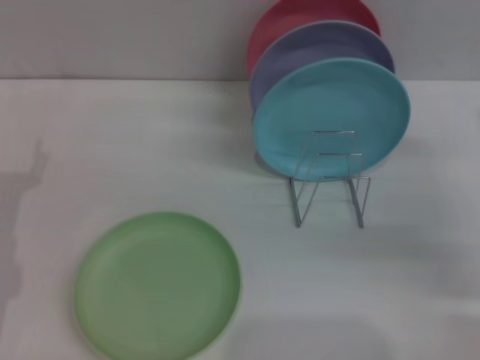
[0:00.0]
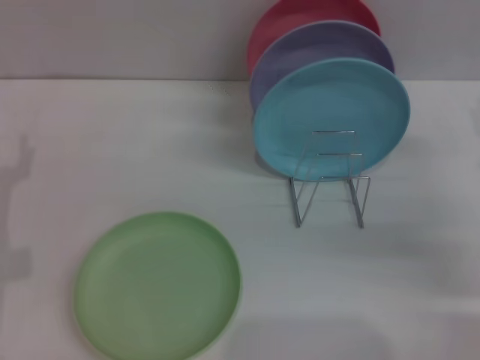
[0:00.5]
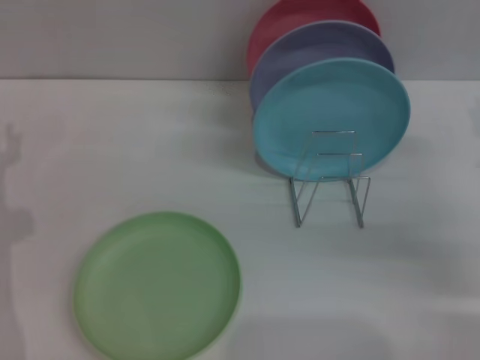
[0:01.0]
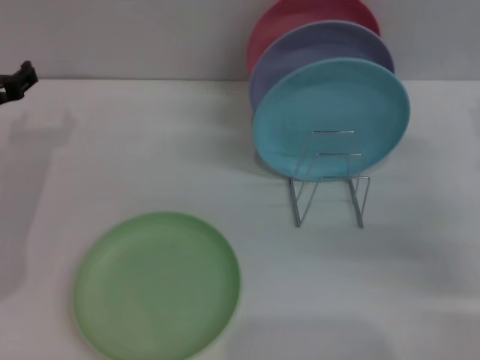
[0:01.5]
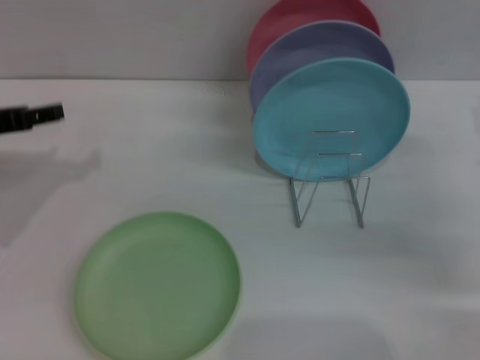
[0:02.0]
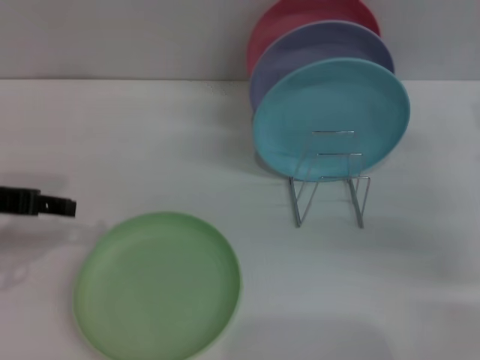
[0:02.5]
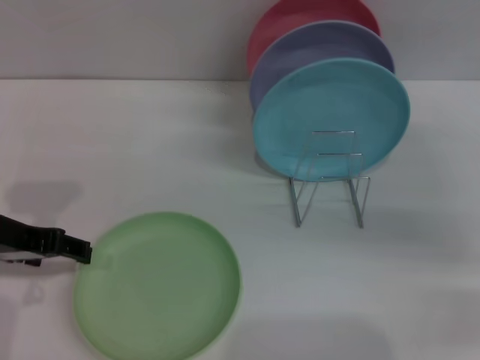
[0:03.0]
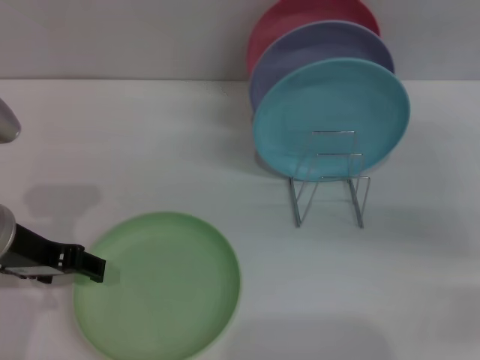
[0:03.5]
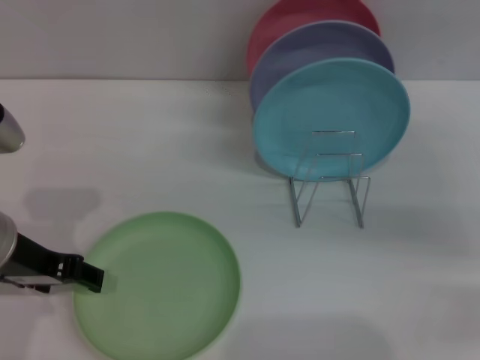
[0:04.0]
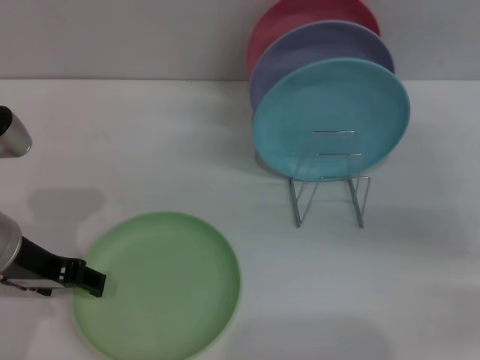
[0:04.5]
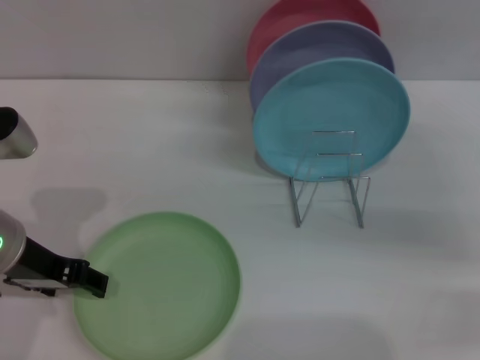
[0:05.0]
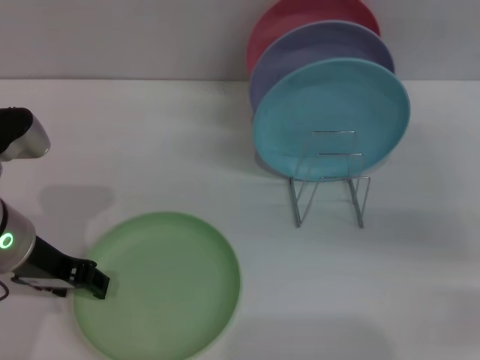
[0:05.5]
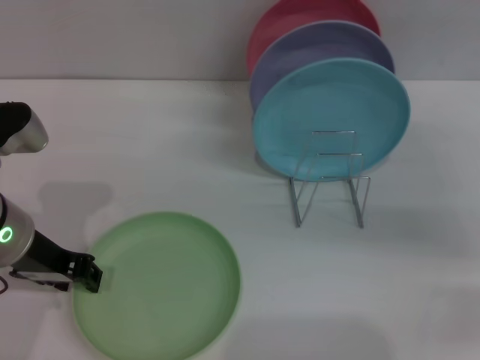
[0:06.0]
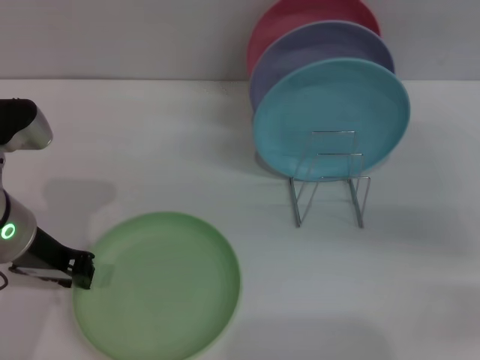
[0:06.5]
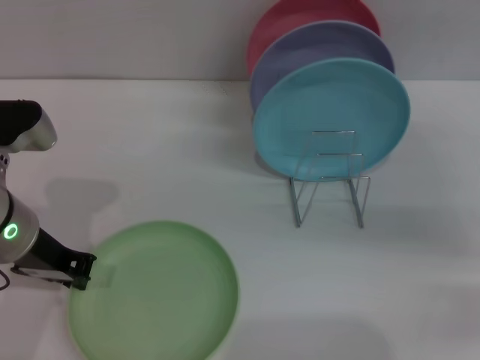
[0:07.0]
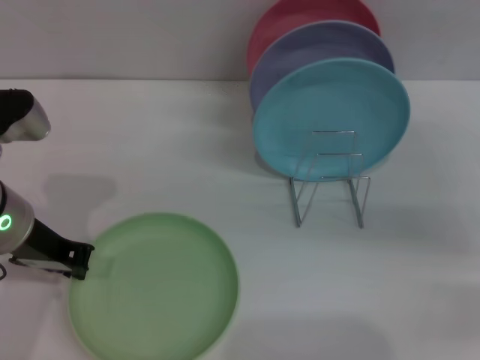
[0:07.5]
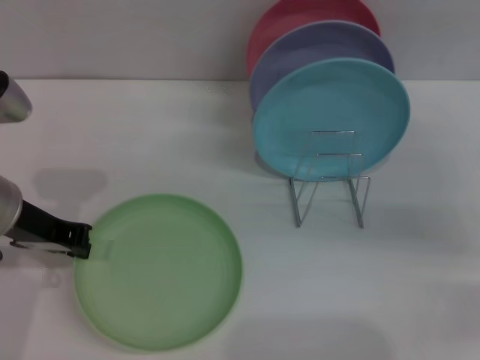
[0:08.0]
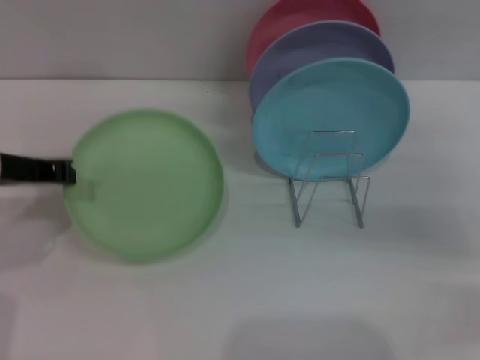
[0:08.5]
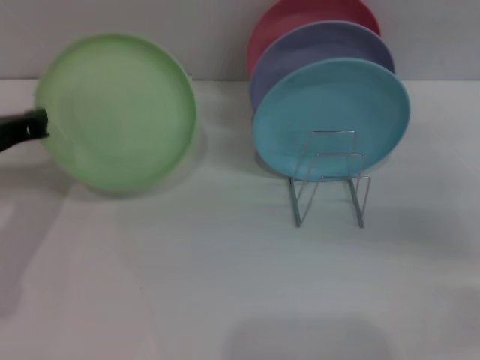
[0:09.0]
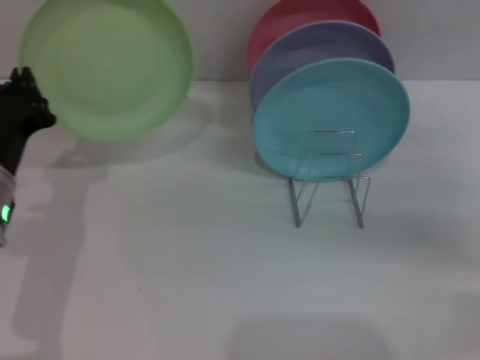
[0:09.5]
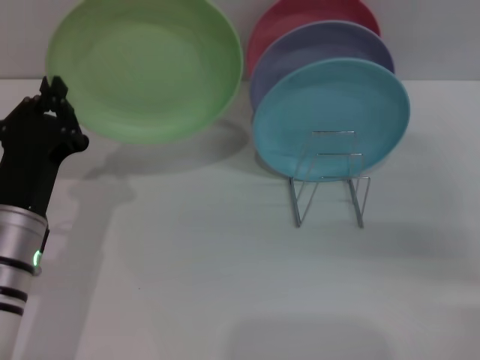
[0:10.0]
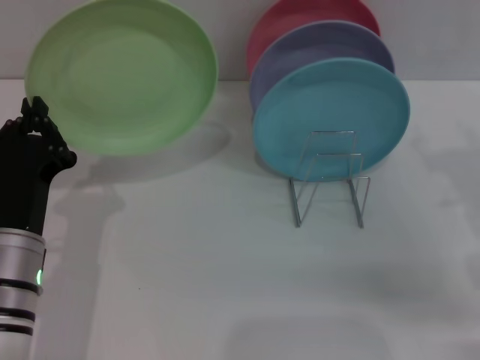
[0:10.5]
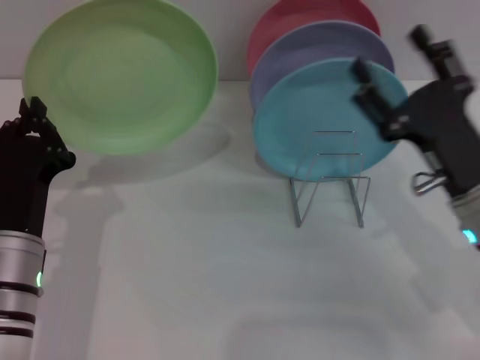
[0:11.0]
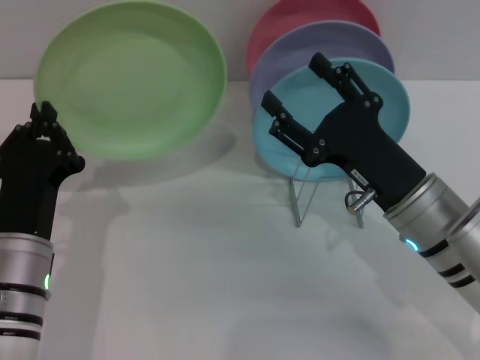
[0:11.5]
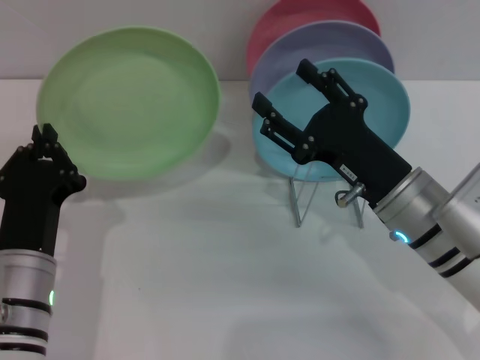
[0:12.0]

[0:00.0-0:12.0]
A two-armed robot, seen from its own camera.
Task of the whole recording: Grip the plate with one hand, pass it to the other, then set it on the shelf.
Step, 0:00.0 to 0:08.0: Pick up the plate with the left gripper.
0:00.0 to 0:02.0: The left gripper shifts approximately 10 cm upward and forward.
0:02.0 to 0:04.0: The left gripper moves to the right and backward, roughly 10 cm.
0:04.0 to 0:06.0: The left gripper closes.
0:06.0 to 0:08.0: The left gripper closes.
0:08.0 to 0:10.0: The left gripper travels downward and backward by approximately 10 cm.
0:10.0 to 0:12.0: The right gripper moves to the left, approximately 20 cm.

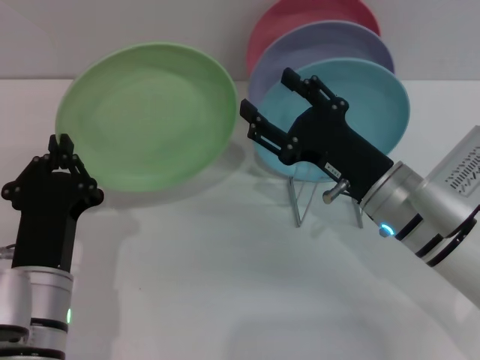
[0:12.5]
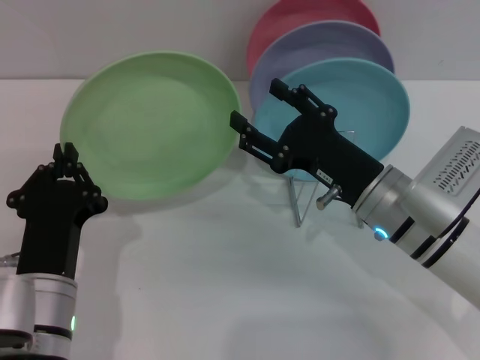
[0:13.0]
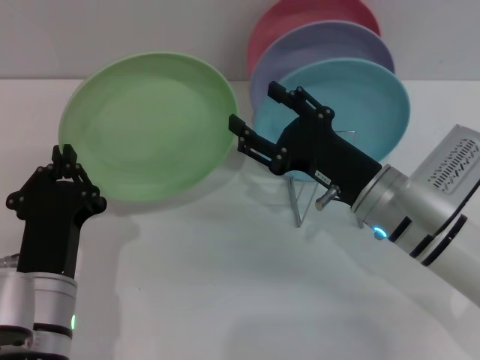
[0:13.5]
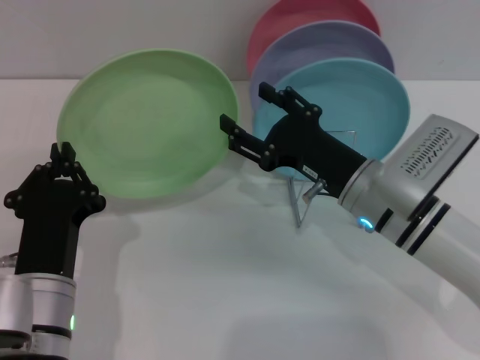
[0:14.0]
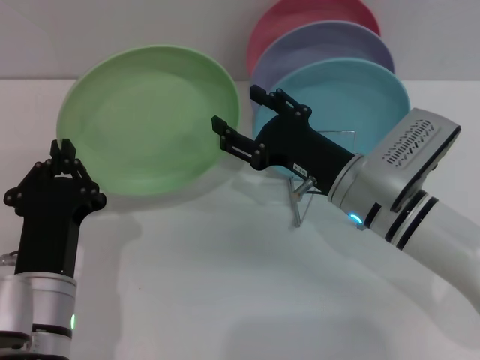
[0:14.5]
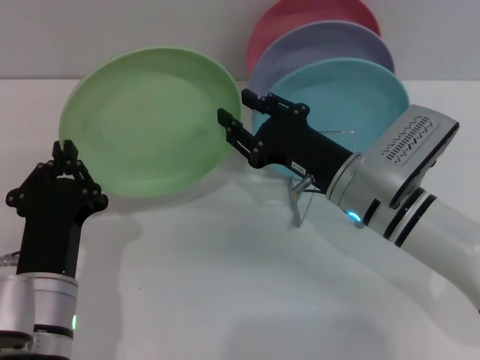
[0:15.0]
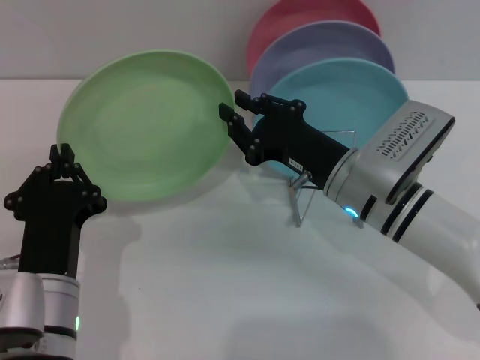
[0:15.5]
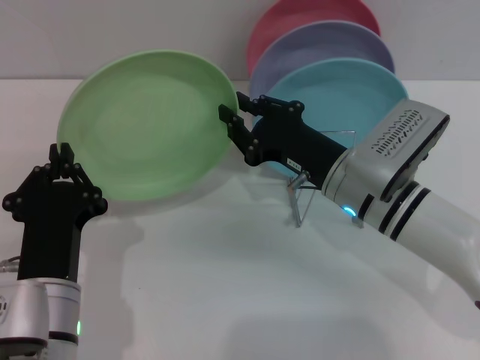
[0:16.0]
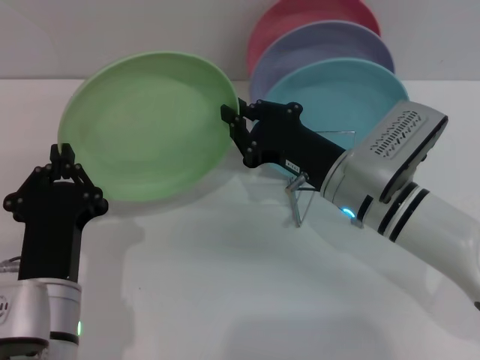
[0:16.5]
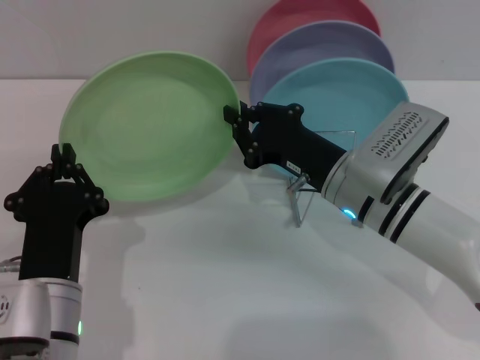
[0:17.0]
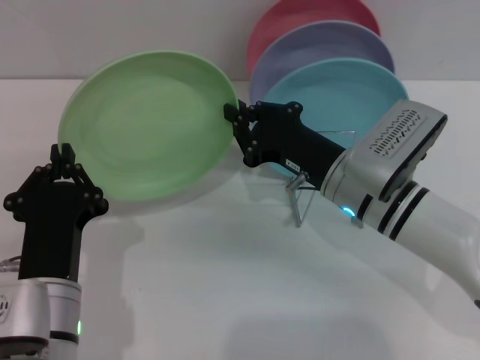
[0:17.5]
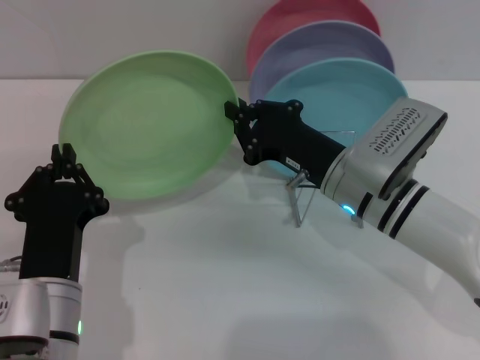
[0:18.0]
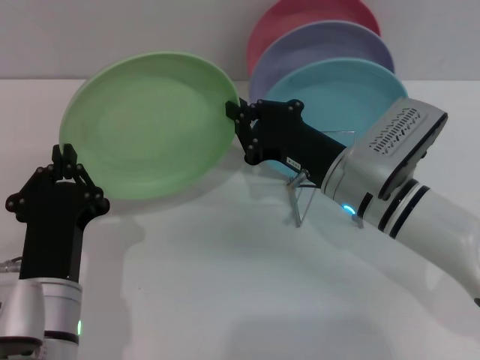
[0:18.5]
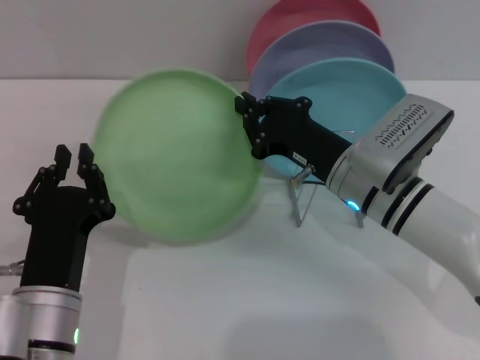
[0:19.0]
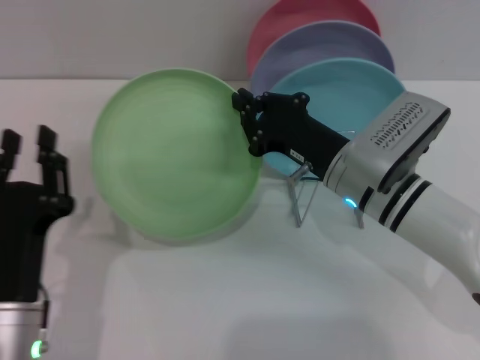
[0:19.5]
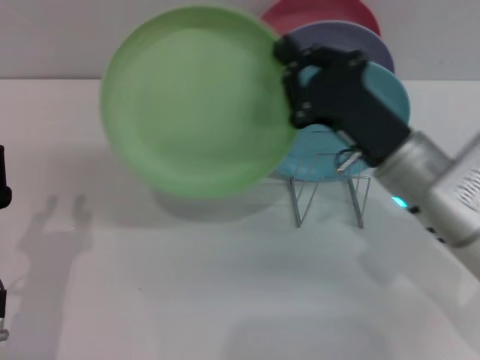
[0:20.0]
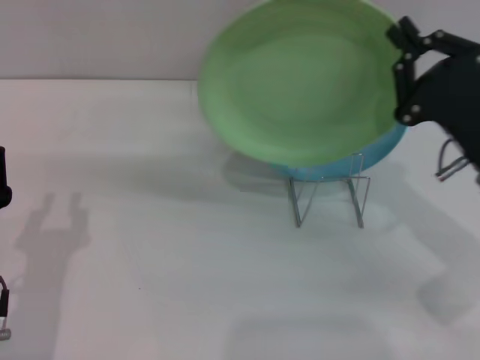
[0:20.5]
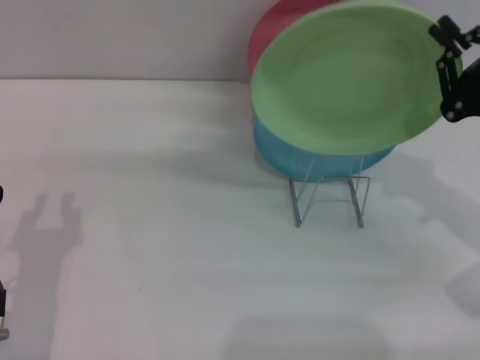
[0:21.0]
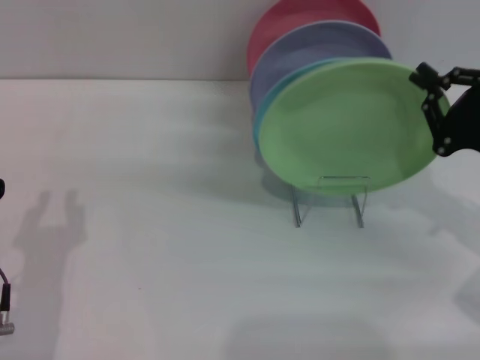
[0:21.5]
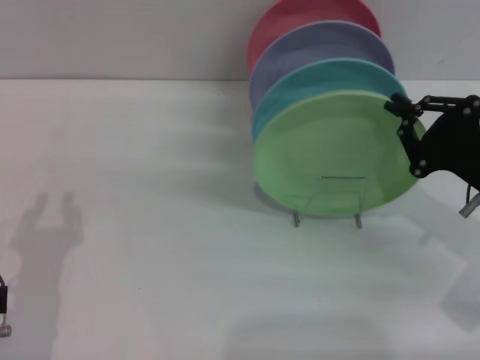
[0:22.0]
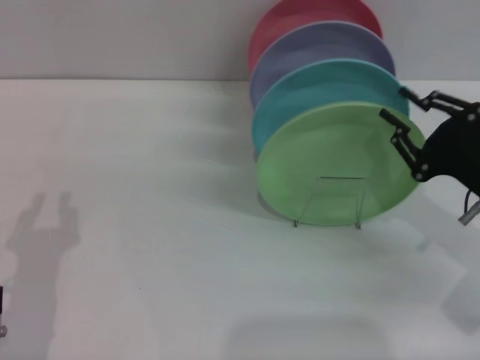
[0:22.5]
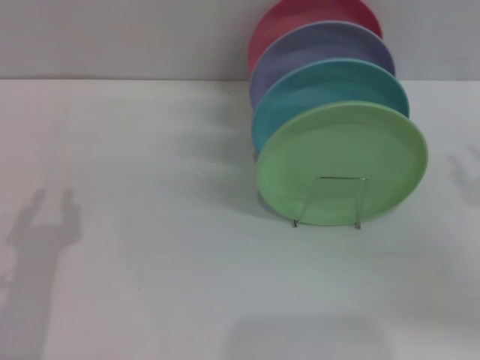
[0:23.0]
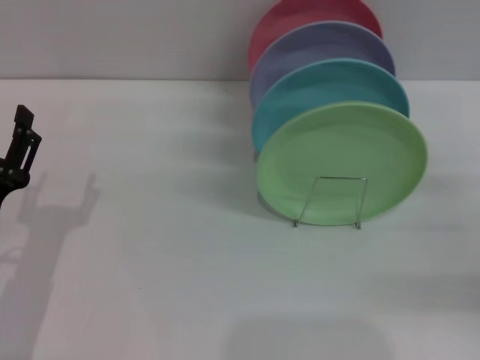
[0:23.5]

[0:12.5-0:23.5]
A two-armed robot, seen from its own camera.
Task of the whole recording: Grip the plate with one hand, pass it to the other, then set it on the shelf.
Step, 0:12.5 to 0:19.0: Pass the plate from the left gripper to the right gripper.
Step, 0:19.5 to 0:22.5: Place the plate on the shelf with the right gripper.
0:12.5 to 0:14.5: The grippers make only small movements.
0:14.5 to 0:16.0: The right gripper closes up.
0:16.0 to 0:18.0: Both grippers stay about where they are.
0:18.0 to 0:20.0: The left gripper heads to the left, covering approximately 5 cm, and opens.
0:20.0 to 0:21.5: The right gripper moves to the right, some 15 cm.
0:21.5 to 0:23.5: The right gripper heads to the right, covering roughly 5 cm, and opens.
